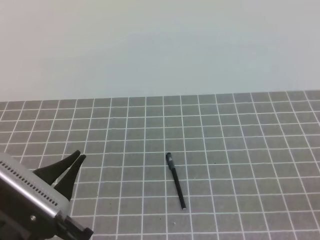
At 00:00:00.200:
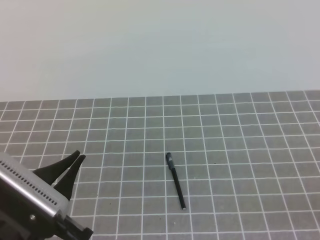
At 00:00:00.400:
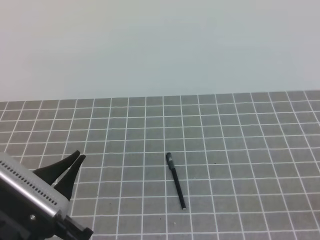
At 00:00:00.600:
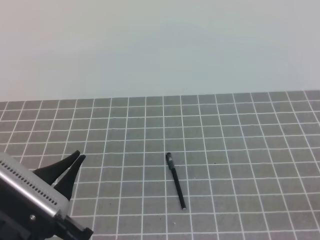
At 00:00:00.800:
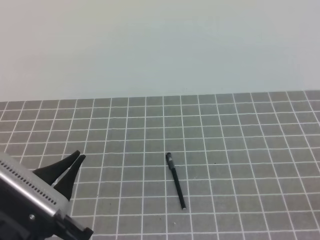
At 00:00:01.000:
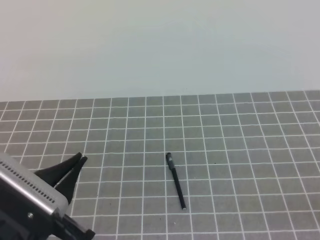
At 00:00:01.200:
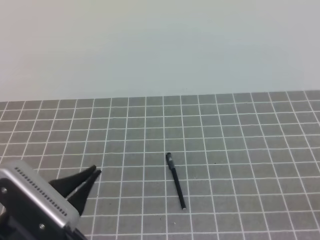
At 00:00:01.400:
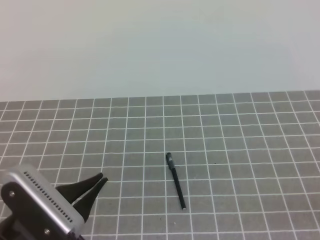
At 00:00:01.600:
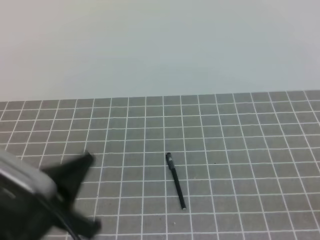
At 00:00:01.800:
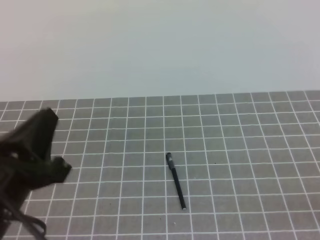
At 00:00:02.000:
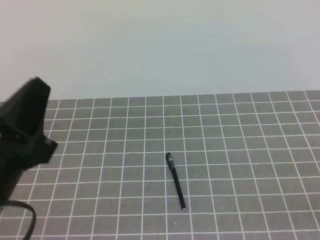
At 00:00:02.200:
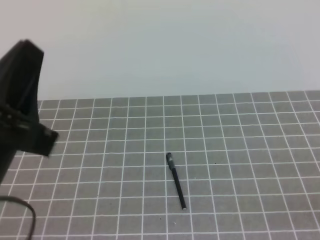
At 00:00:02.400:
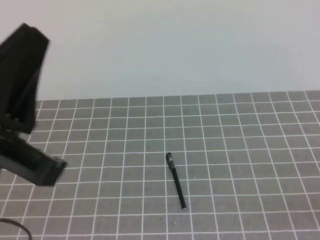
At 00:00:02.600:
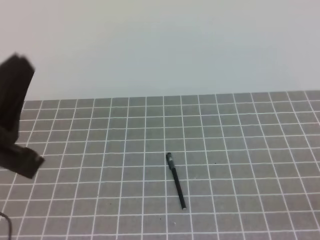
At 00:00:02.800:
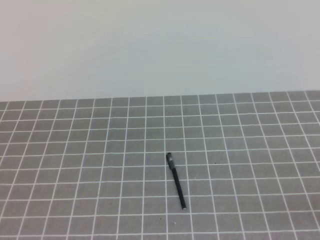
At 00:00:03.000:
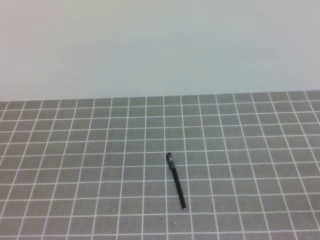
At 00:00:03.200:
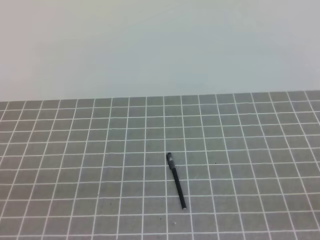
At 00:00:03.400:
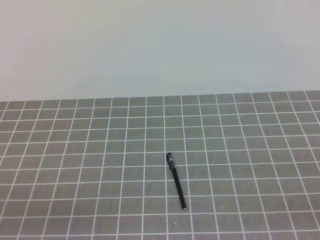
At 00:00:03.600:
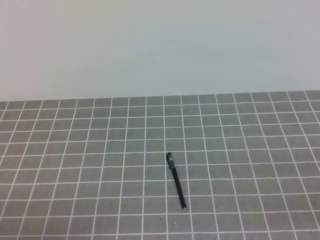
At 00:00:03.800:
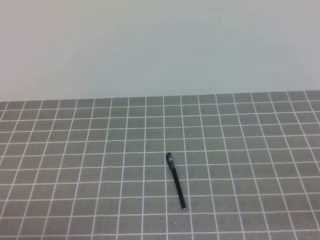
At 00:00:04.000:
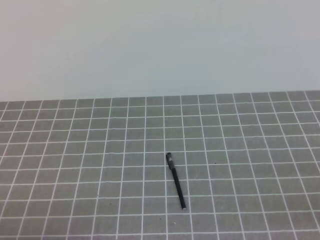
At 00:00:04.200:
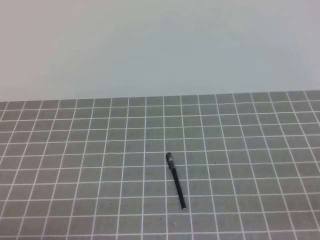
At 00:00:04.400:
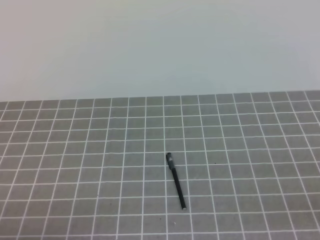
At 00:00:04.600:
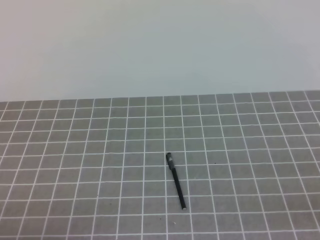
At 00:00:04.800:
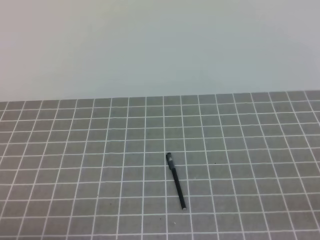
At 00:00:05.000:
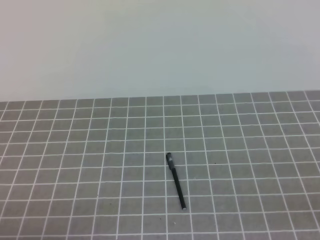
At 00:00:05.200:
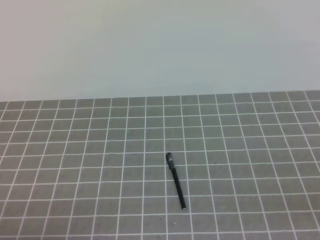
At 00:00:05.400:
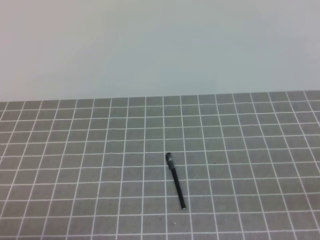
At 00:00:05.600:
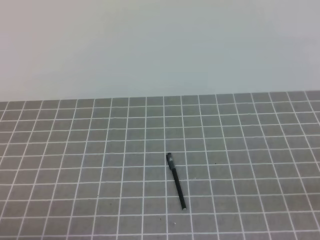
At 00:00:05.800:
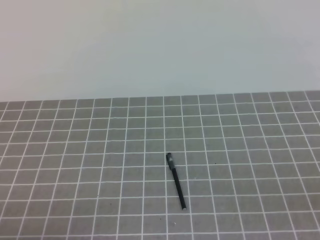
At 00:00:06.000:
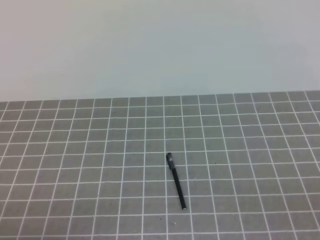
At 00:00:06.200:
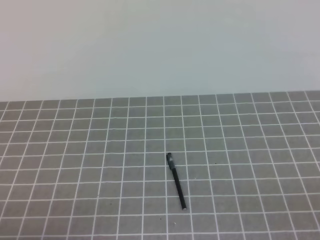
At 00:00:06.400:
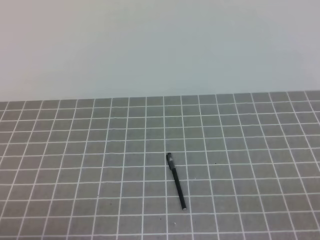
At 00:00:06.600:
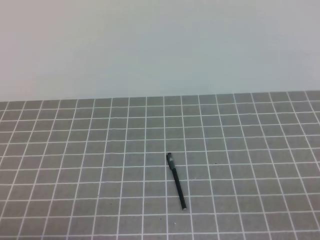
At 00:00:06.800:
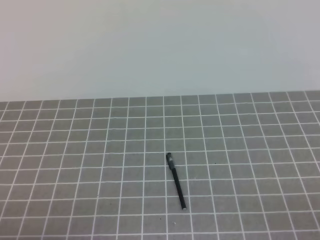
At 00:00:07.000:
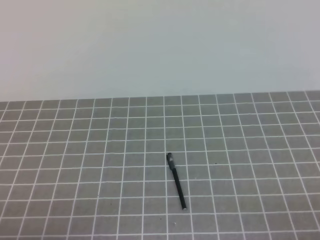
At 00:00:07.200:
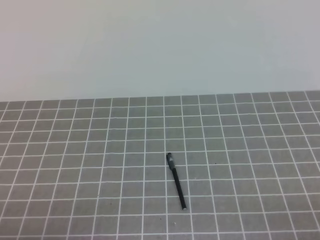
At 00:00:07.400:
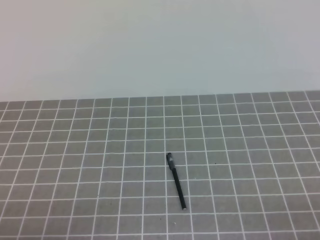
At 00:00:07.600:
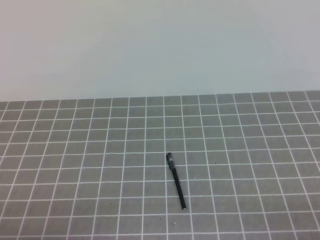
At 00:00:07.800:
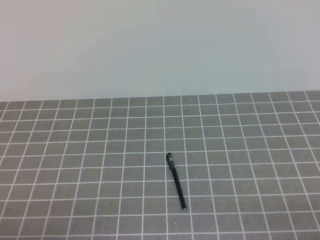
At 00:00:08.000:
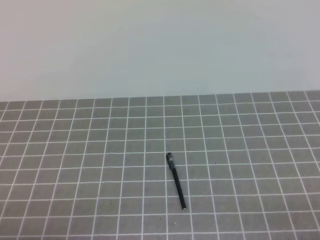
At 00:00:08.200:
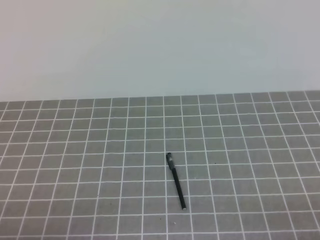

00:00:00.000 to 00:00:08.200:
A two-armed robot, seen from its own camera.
Task of the whole recording: on the grey tablecloth, hold the pen cap in one hand and the pen in the other, then cover the pen cap.
Step, 00:00:00.000 to 00:00:08.200: Put the cap on the pen.
00:00:01.600 to 00:00:03.200: The left gripper heads to the left and backward, covering roughly 10 cm, and goes upward and returns, roughly 10 cm each way.
